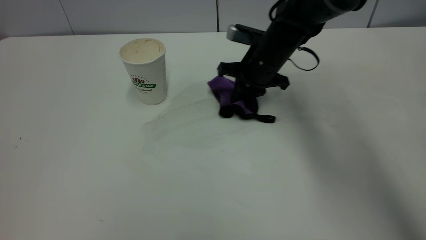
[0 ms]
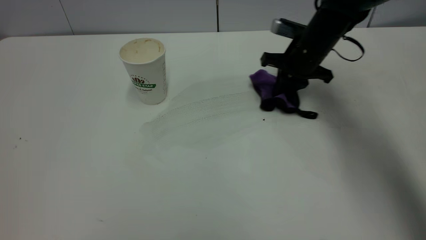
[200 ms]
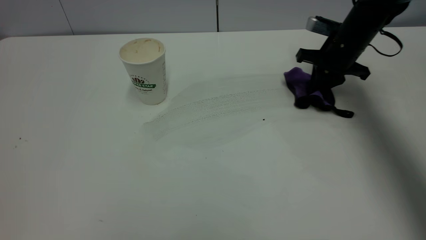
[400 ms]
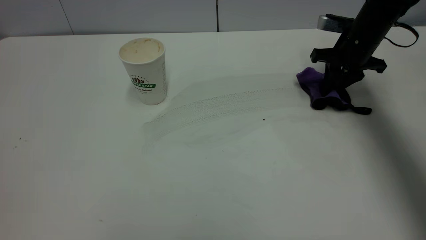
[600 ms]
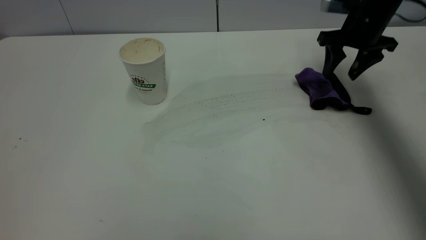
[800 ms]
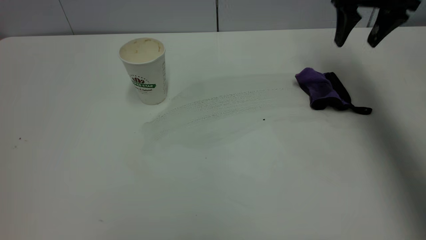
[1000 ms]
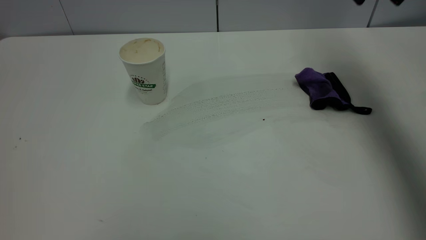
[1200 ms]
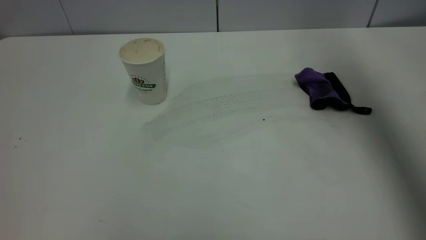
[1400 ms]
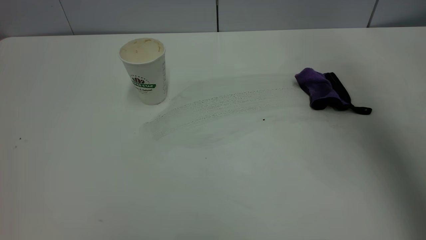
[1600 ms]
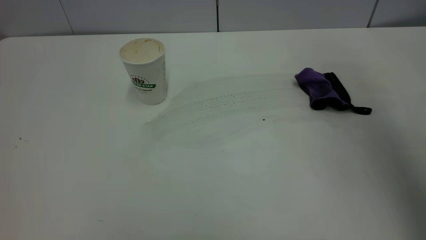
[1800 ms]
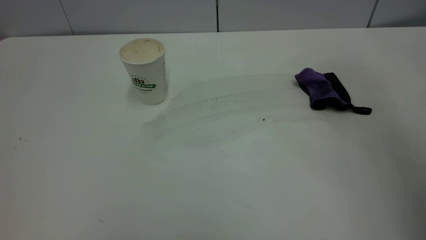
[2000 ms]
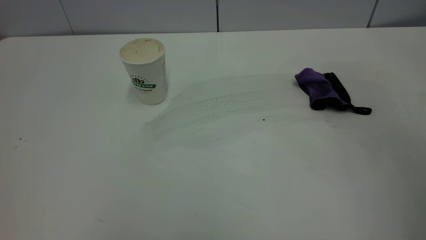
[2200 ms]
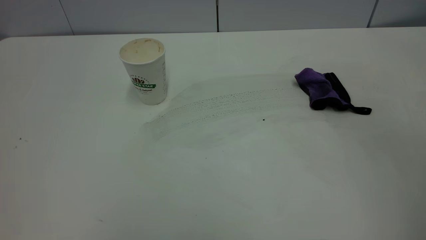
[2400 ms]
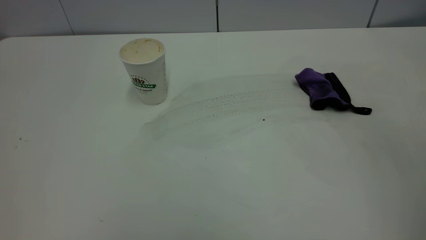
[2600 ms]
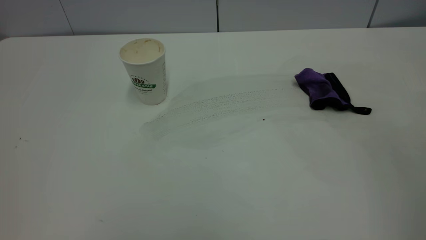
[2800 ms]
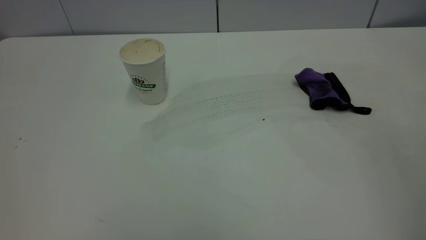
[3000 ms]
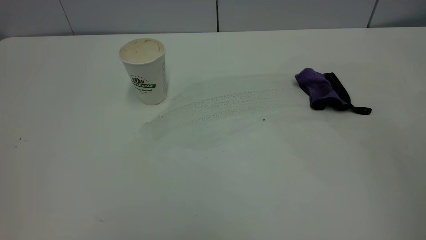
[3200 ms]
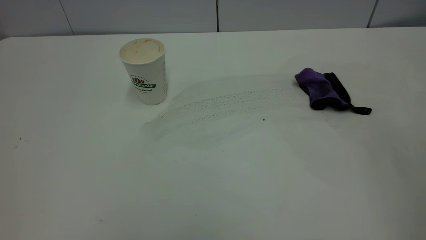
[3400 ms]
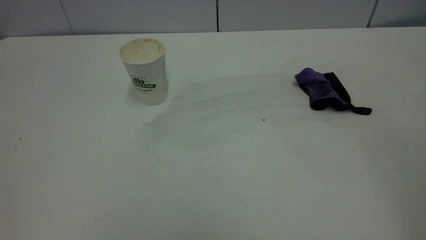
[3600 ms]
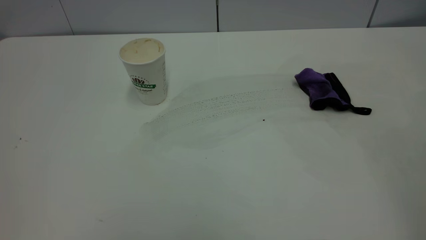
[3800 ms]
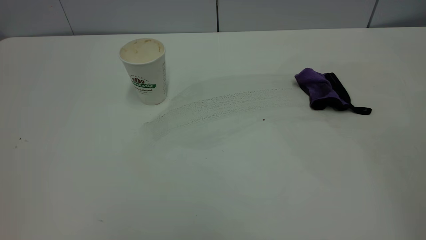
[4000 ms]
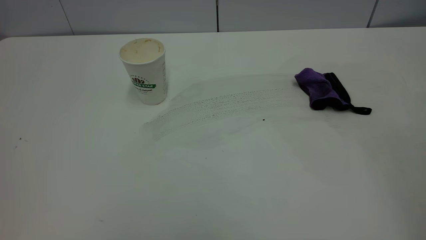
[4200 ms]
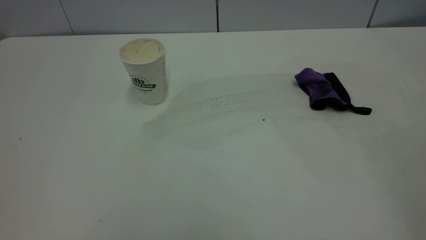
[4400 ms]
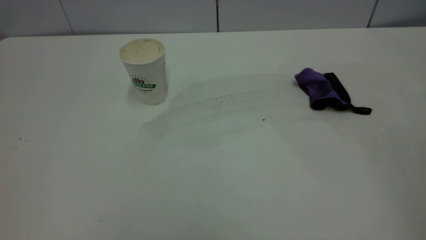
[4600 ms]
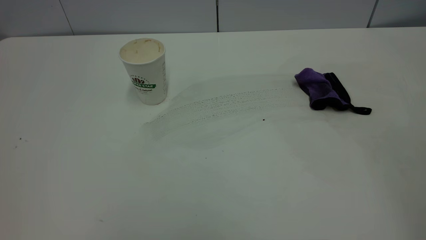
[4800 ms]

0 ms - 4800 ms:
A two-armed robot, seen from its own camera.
Task of the whole recording: the left gripper pick up the fallen cup and place it upright, the right gripper grasp the purple rag and wipe the coffee stain on the table, the right gripper put the purple rag back in its original position.
0 ms - 1600 ms: The right gripper travels upward, backward and to the right by about 40 cm, and opens.
1600 ms - 3200 ms: The right gripper travels backward by roughly 30 cm.
